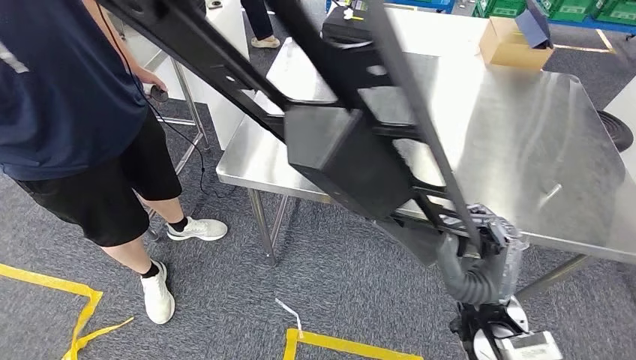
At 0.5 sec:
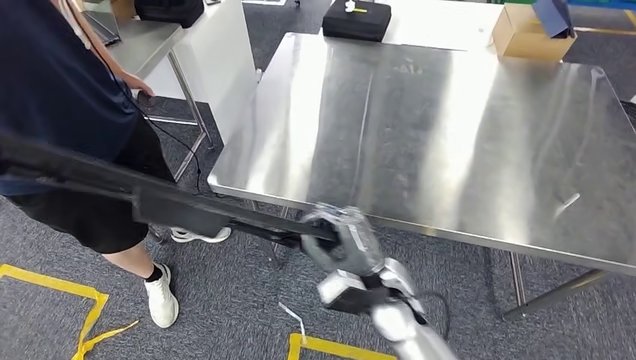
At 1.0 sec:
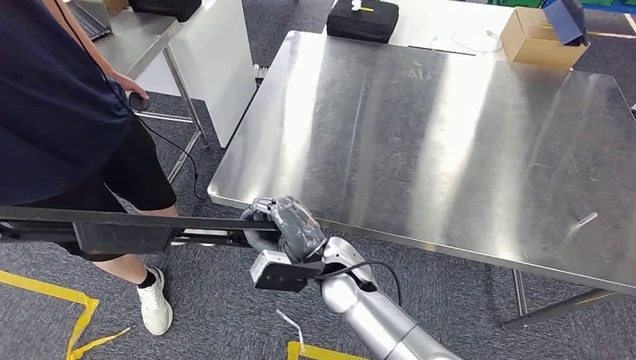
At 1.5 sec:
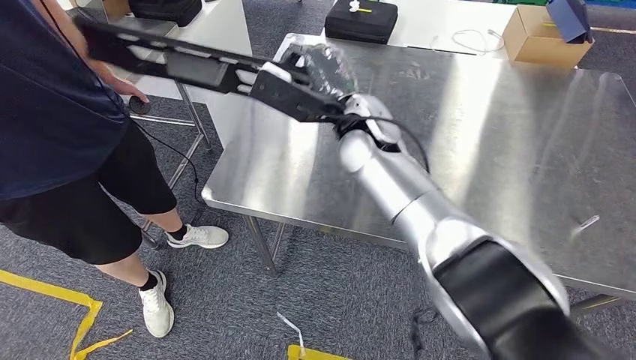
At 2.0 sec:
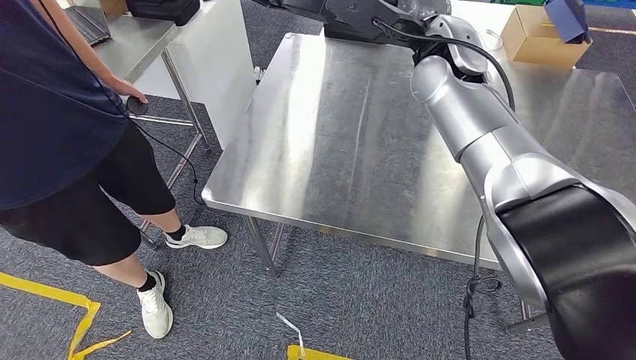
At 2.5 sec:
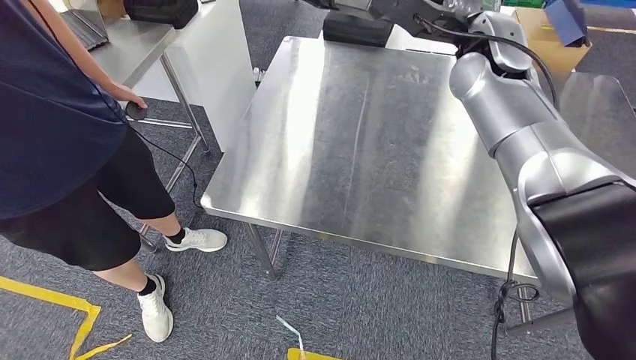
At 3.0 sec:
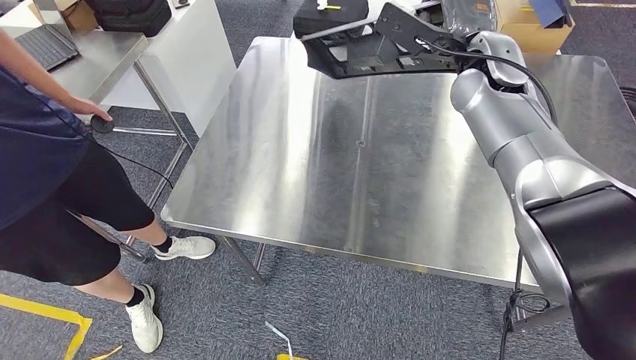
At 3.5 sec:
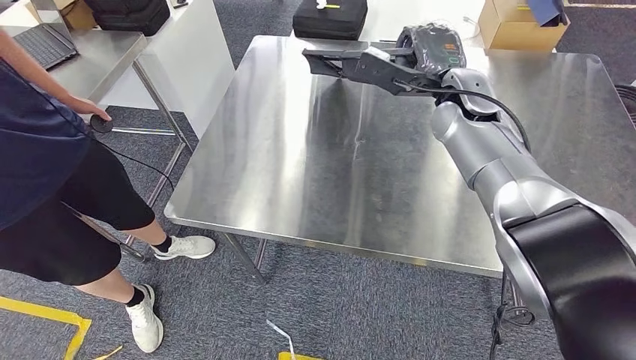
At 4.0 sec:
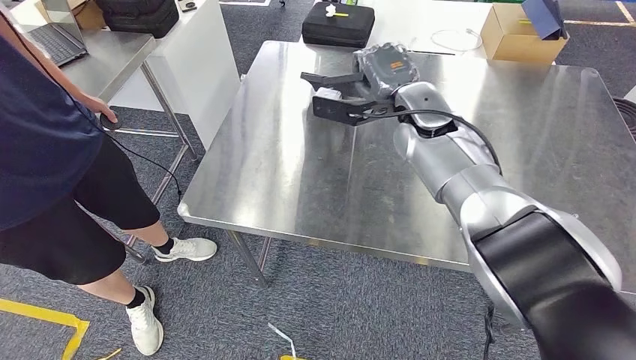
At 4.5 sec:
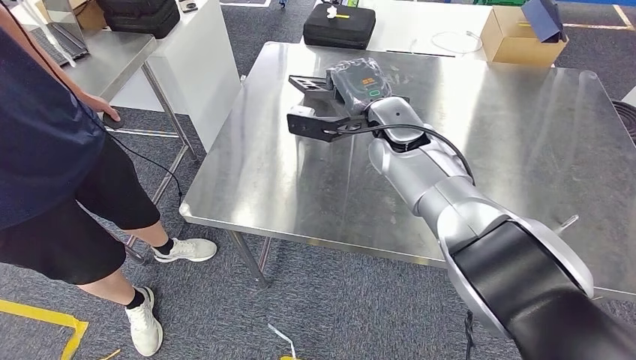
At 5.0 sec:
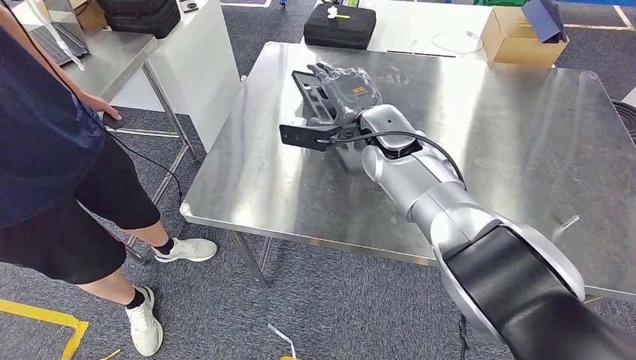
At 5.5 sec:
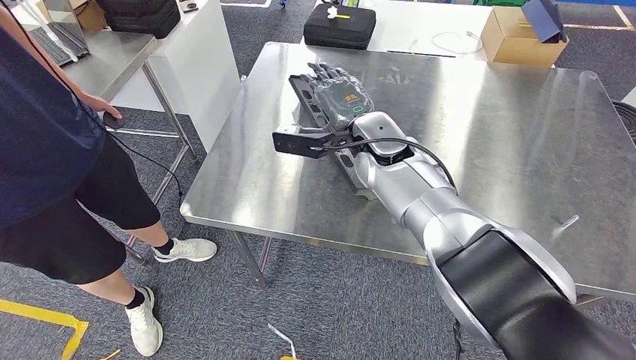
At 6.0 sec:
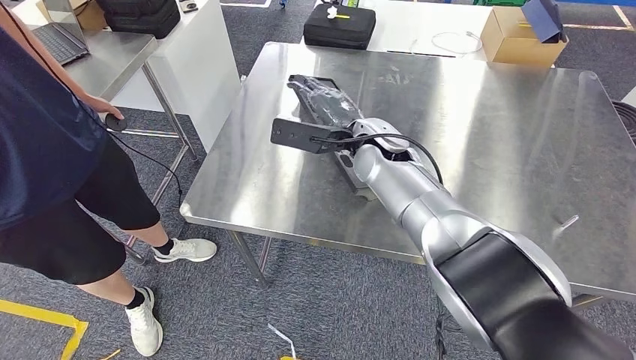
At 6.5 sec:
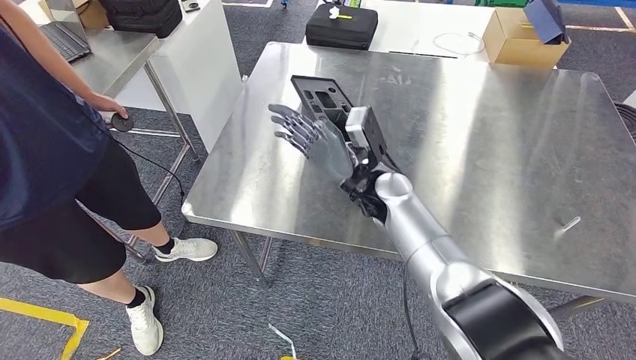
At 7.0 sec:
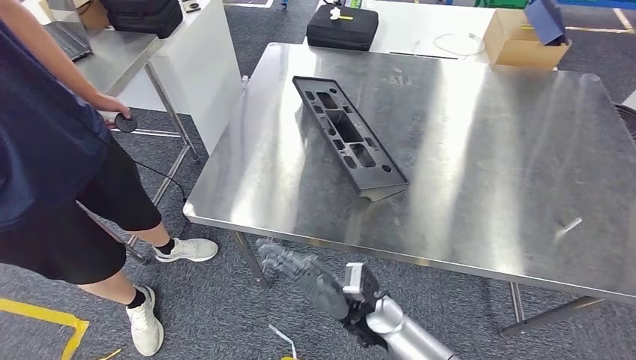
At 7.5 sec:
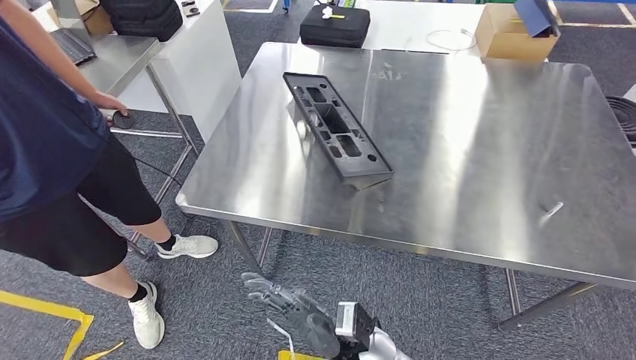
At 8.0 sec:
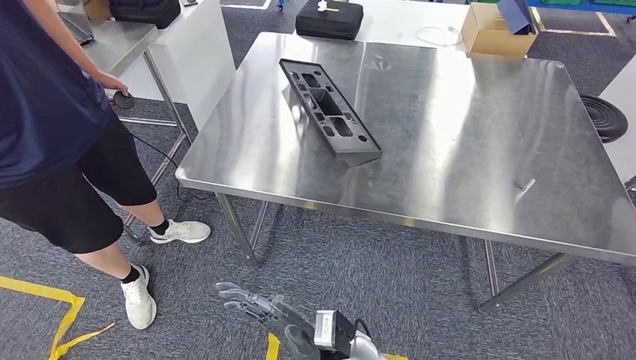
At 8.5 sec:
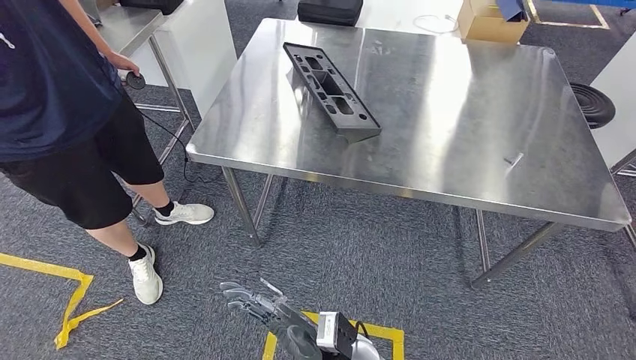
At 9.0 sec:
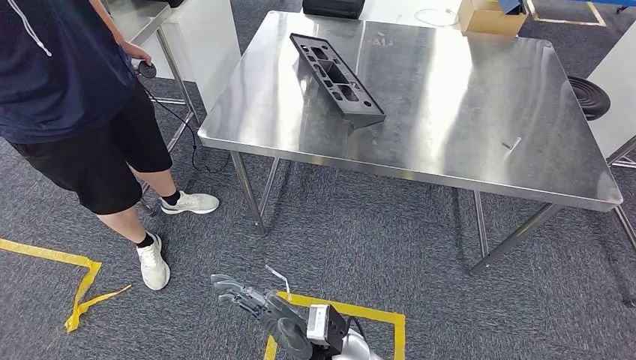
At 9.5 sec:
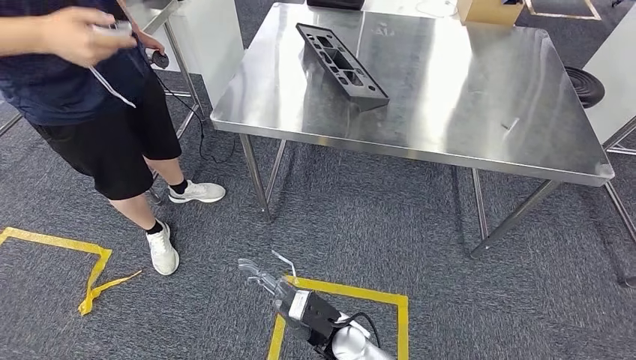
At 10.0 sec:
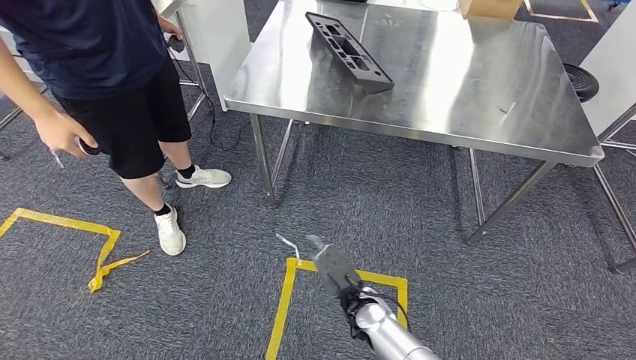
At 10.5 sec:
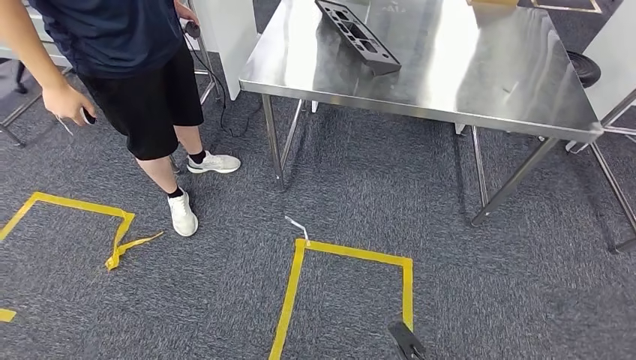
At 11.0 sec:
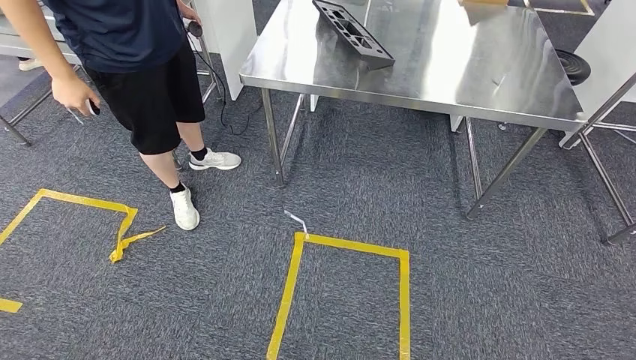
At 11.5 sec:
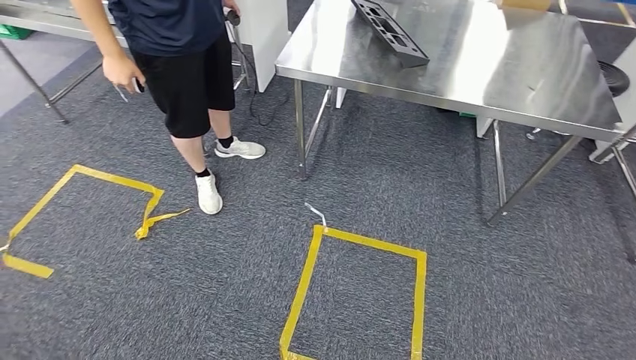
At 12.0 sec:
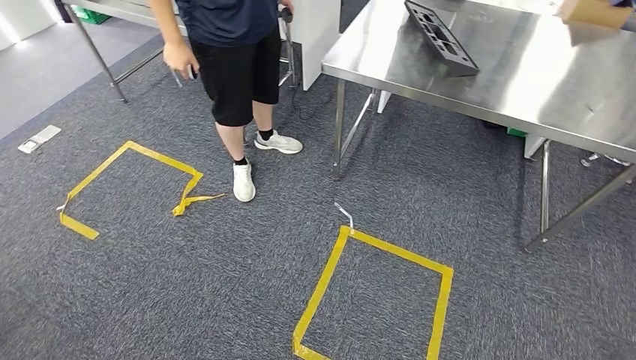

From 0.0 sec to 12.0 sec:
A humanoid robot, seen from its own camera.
Step, from 0.0 sec to 9.5 sec: Insert the large material into the corresponding slot on the workbench.

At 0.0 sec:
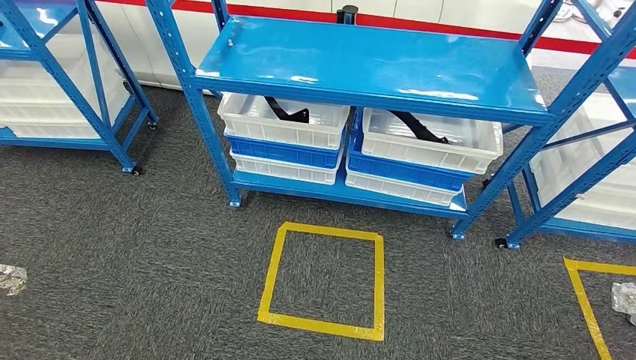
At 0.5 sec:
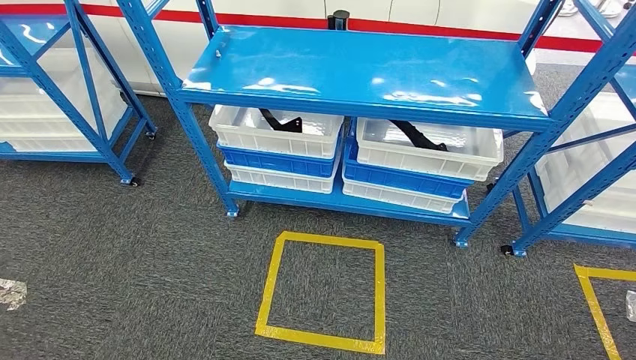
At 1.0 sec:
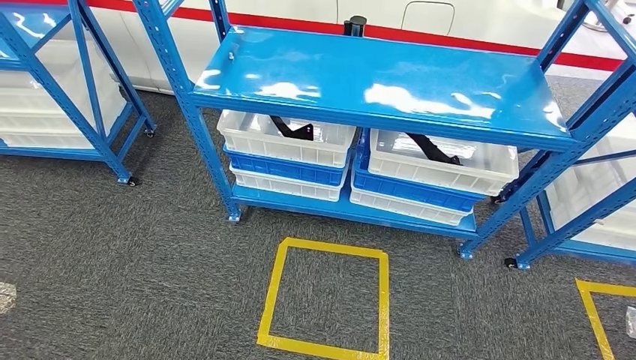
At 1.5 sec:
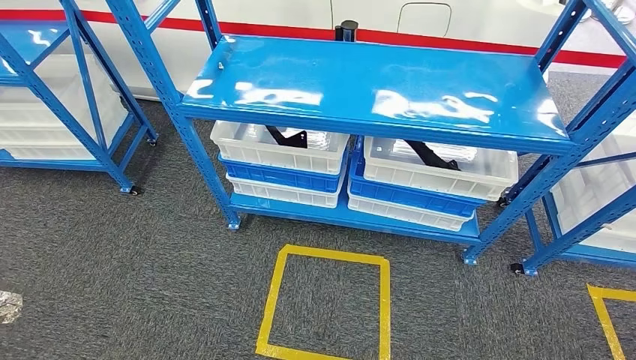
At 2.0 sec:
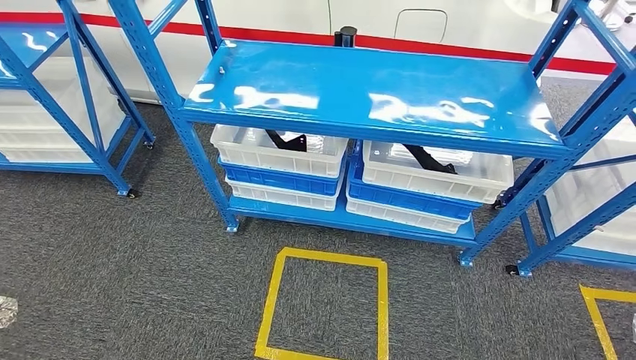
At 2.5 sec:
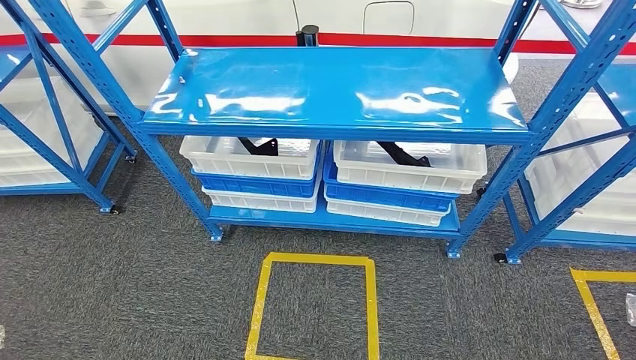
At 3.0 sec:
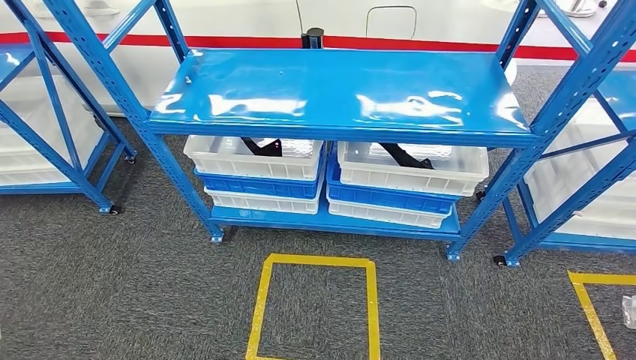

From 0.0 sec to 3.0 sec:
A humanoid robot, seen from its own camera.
Step, from 0.0 sec to 3.0 sec: Return to the initial position at the shelf.
